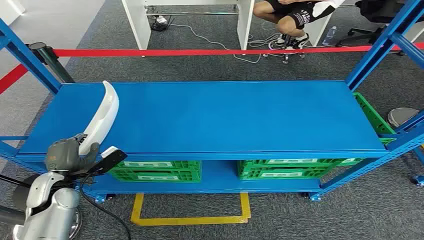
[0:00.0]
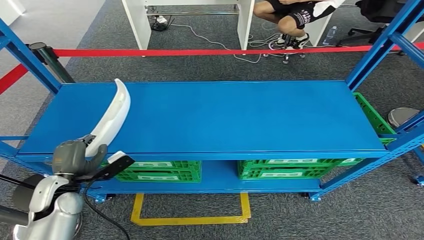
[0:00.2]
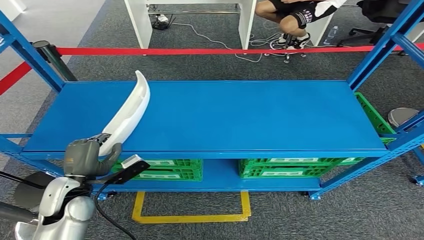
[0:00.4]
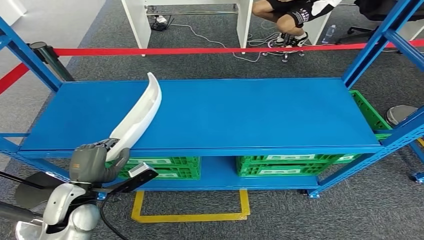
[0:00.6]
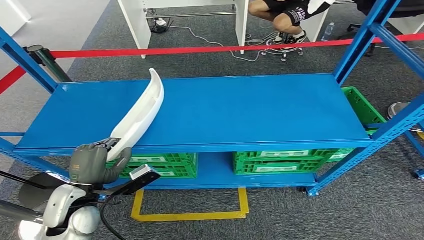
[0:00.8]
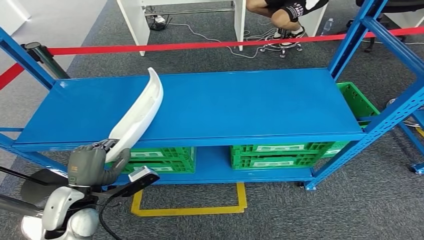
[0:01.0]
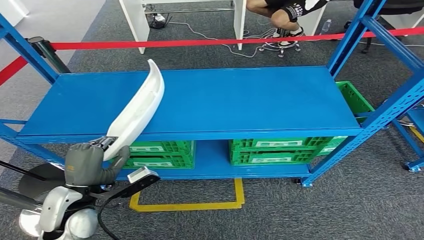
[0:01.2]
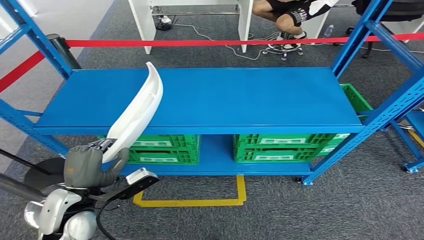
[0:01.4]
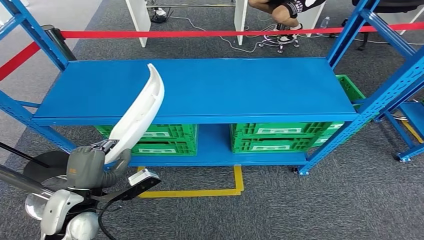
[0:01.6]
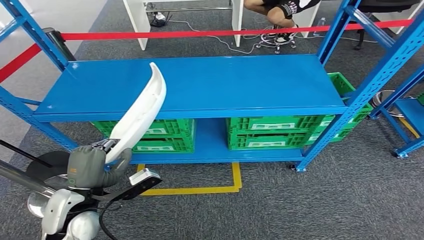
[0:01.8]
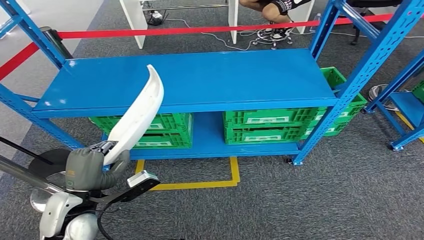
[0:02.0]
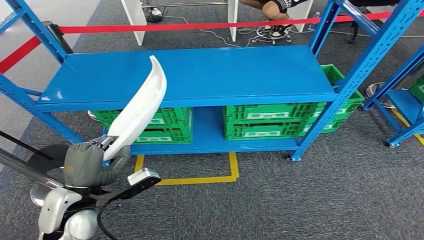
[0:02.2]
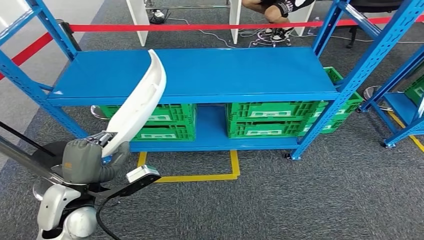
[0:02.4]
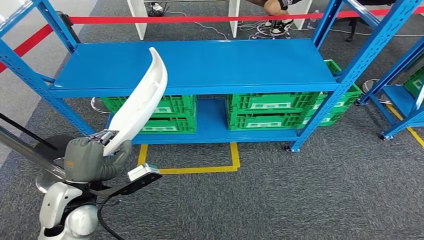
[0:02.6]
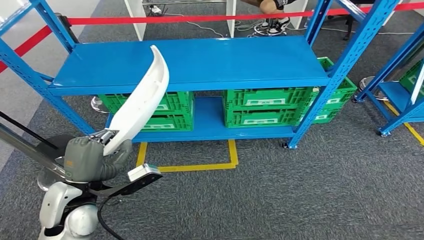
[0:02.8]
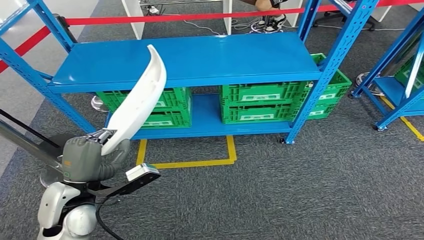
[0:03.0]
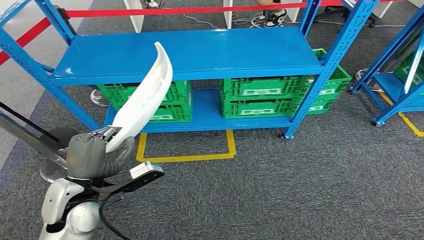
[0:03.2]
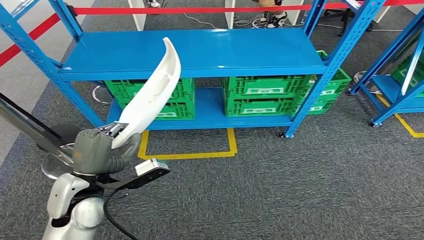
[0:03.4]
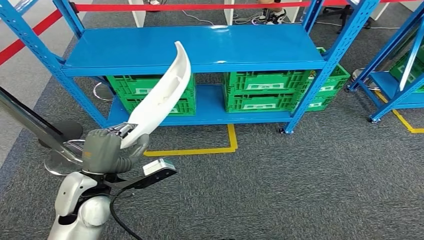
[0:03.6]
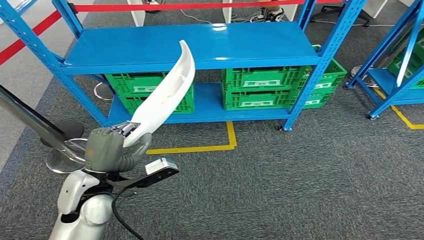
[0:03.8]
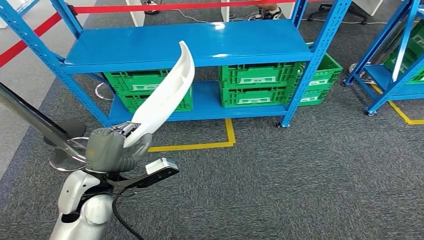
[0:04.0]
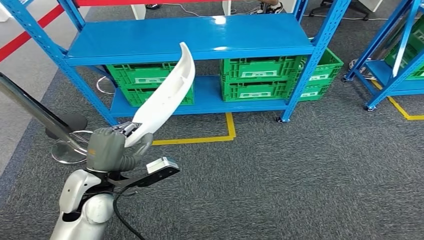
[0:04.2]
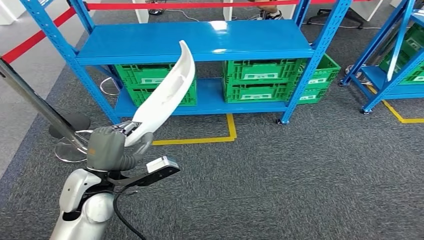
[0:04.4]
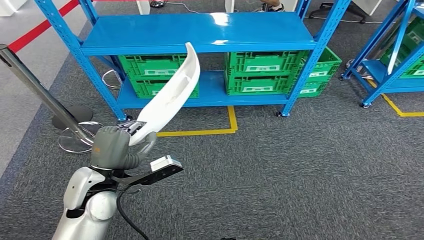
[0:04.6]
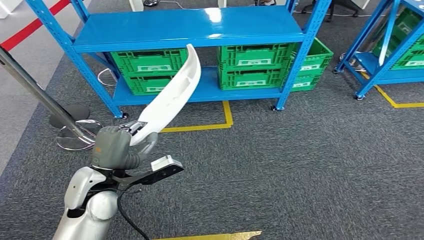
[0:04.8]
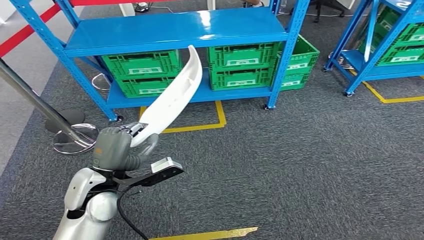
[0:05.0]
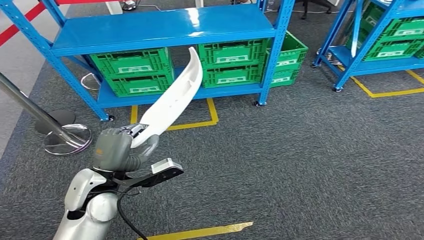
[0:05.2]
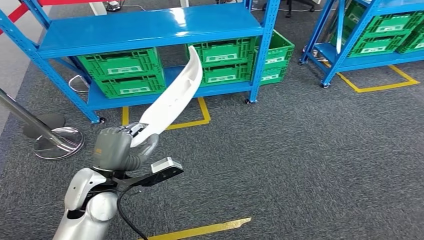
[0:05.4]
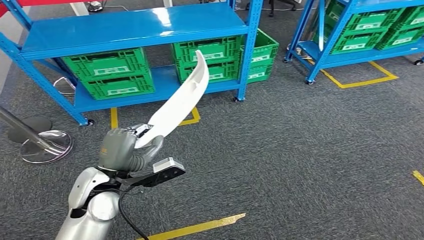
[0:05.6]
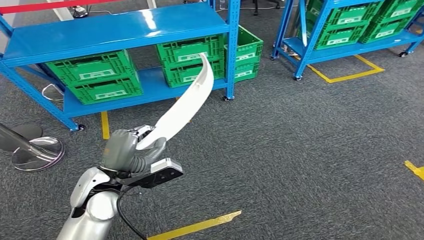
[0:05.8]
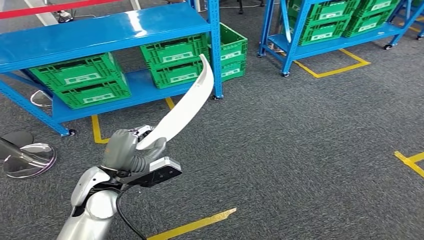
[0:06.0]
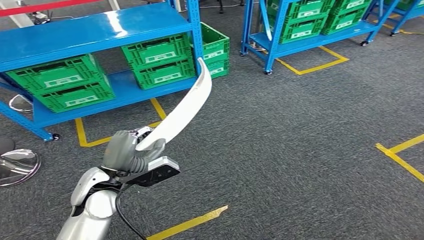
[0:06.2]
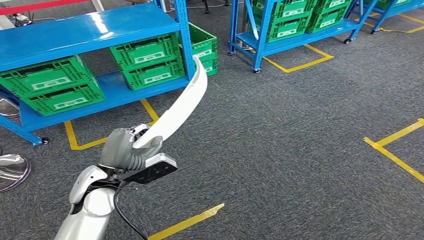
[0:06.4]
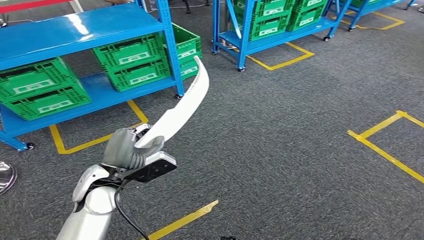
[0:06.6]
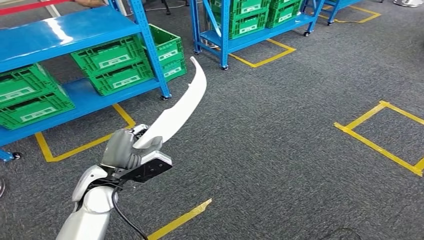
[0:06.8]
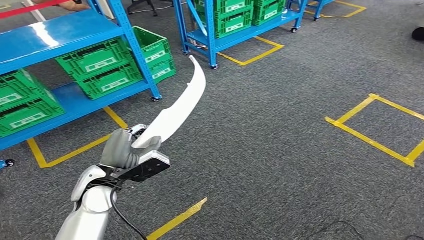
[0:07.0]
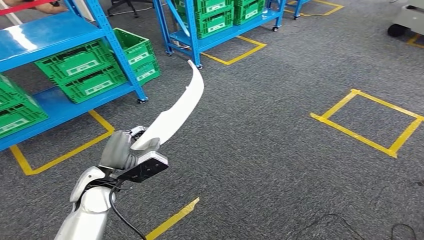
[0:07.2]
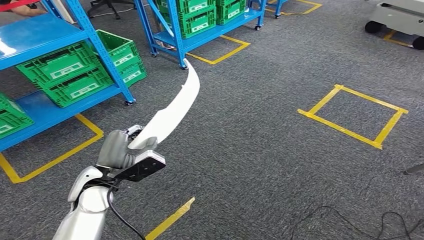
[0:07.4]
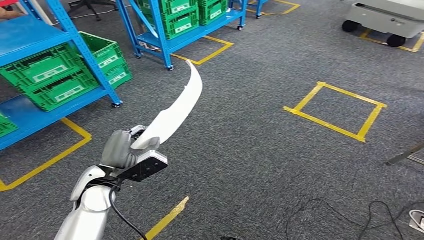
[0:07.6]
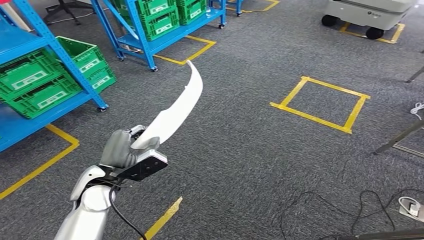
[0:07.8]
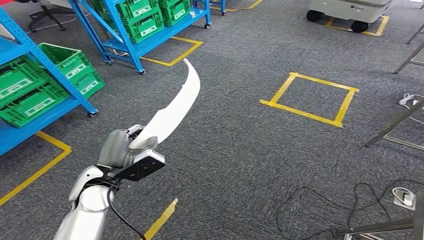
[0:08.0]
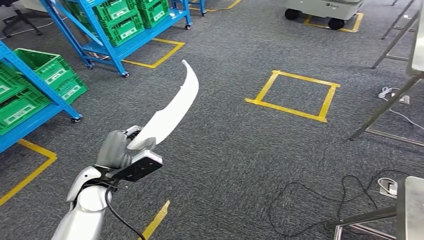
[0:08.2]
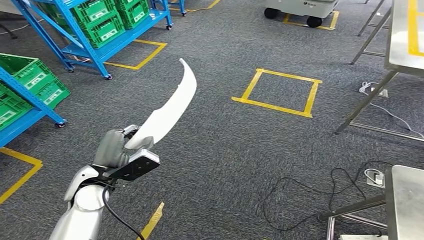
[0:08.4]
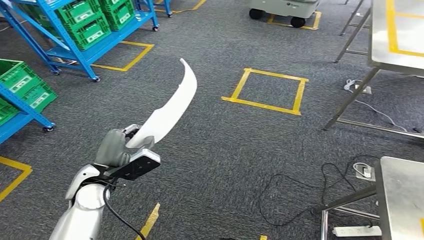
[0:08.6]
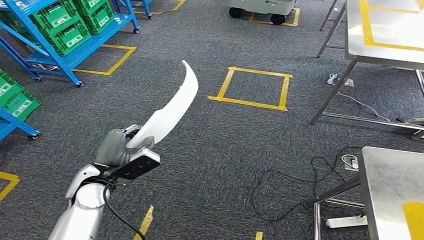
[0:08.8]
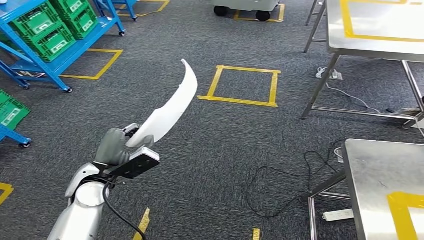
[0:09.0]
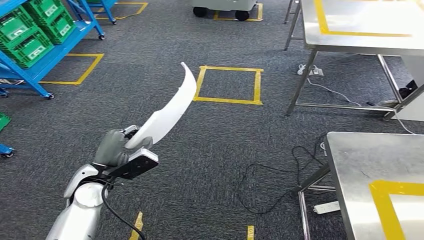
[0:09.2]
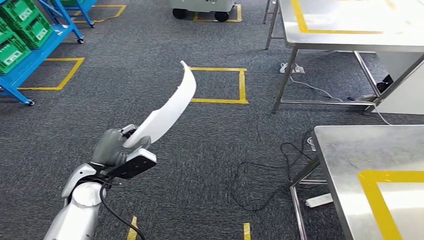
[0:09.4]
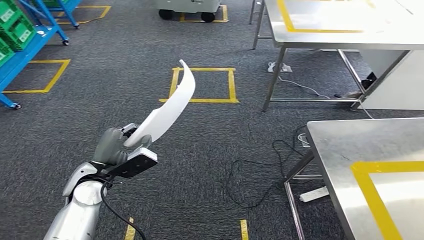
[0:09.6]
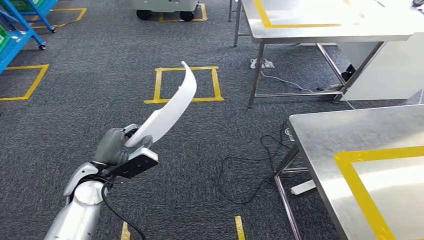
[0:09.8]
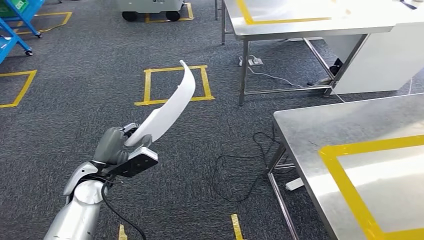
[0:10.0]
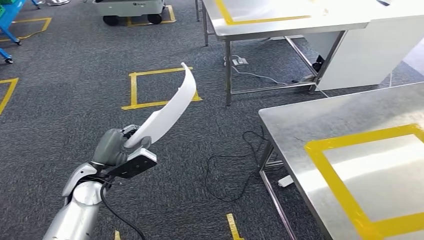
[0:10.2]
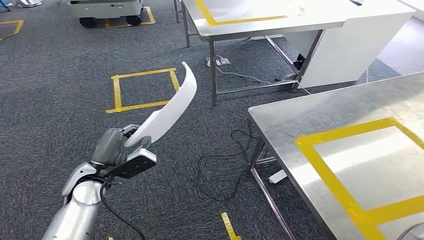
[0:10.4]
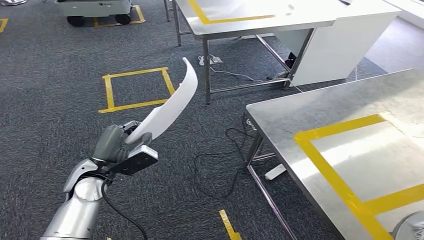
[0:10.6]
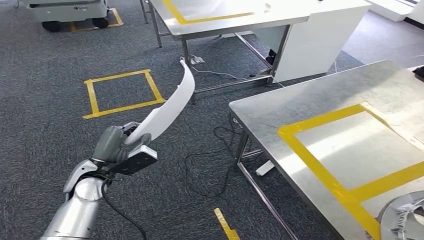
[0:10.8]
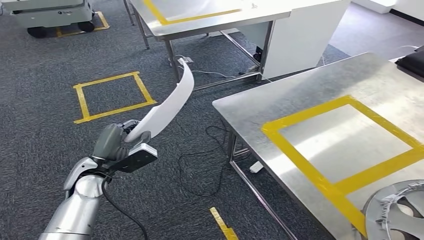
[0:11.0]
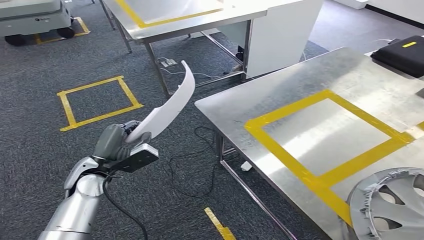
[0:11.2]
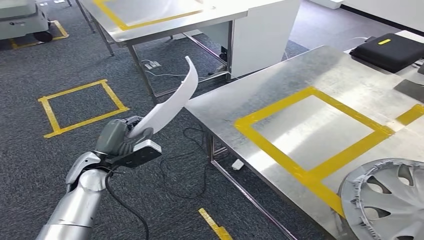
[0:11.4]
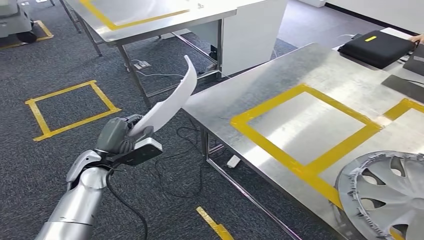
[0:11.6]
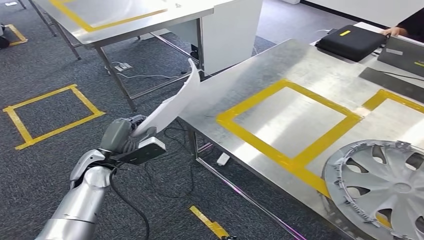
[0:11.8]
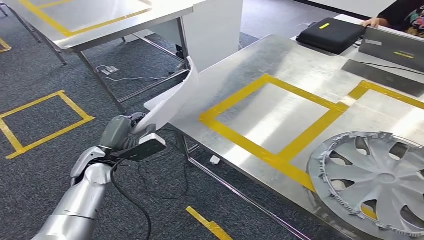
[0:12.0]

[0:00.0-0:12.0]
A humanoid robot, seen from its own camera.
Step, 0:00.0 to 0:02.2: Pick up the small parts from the shelf.

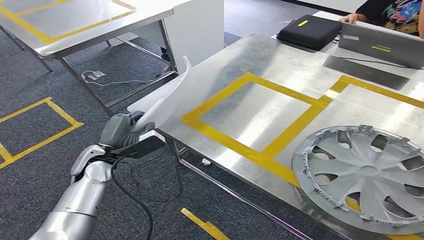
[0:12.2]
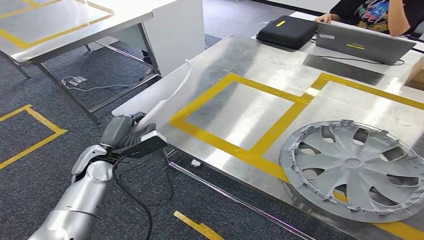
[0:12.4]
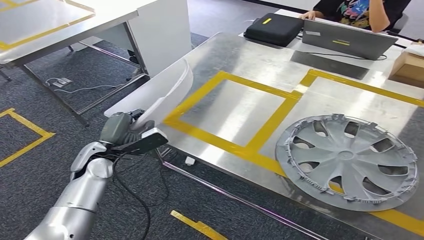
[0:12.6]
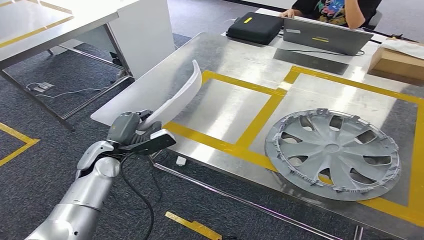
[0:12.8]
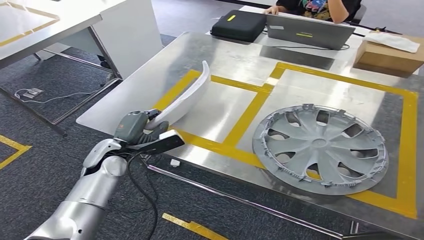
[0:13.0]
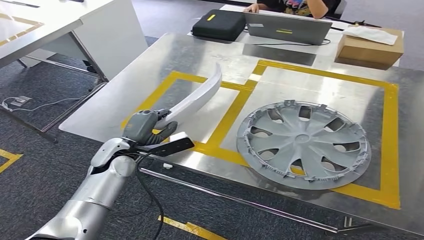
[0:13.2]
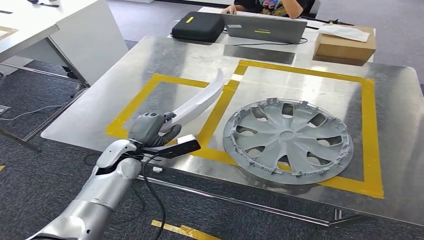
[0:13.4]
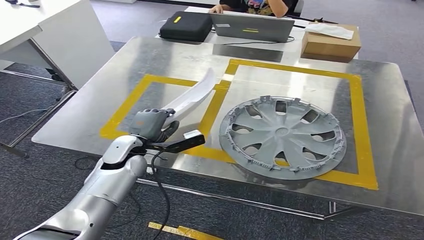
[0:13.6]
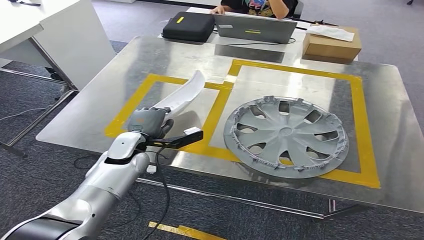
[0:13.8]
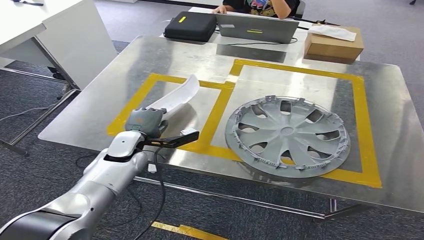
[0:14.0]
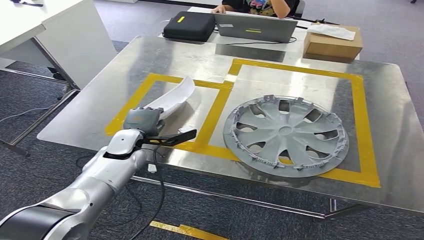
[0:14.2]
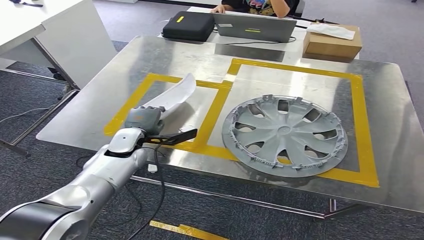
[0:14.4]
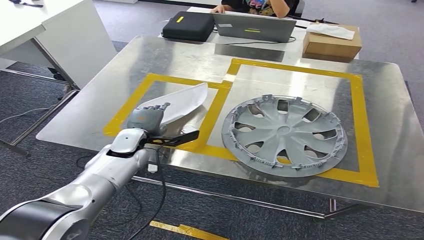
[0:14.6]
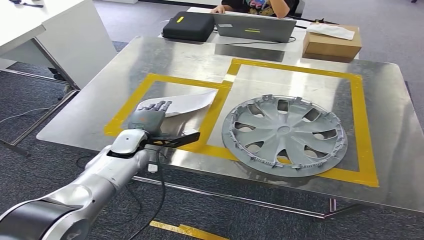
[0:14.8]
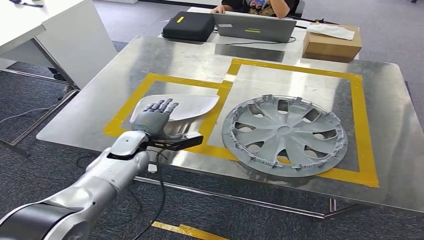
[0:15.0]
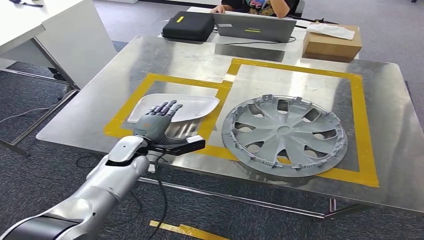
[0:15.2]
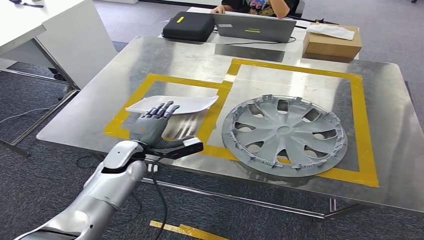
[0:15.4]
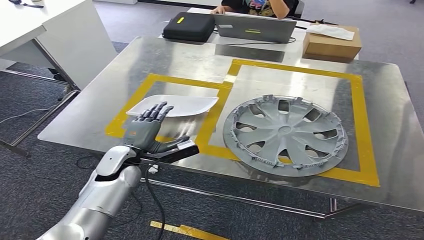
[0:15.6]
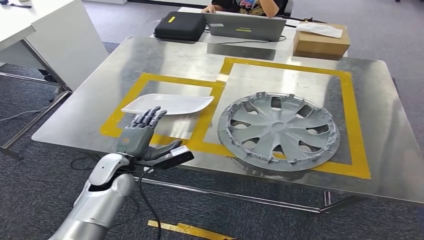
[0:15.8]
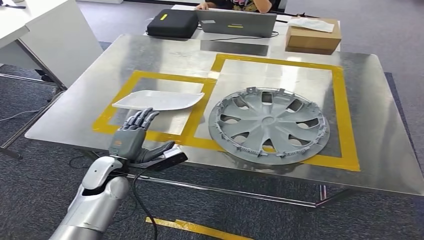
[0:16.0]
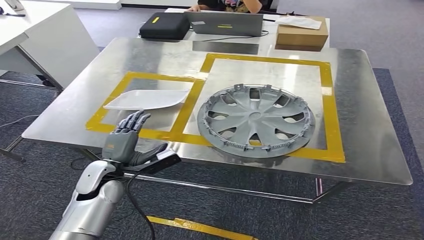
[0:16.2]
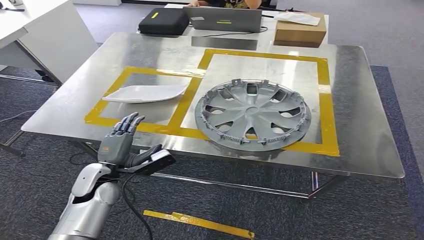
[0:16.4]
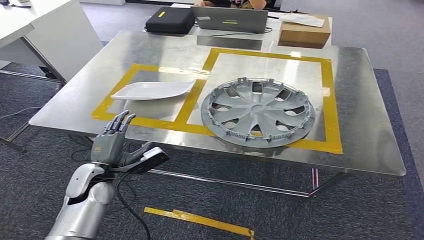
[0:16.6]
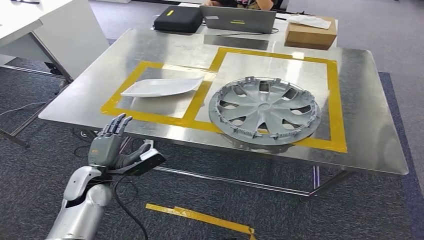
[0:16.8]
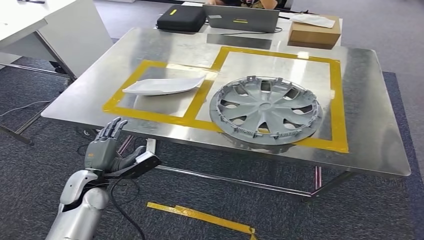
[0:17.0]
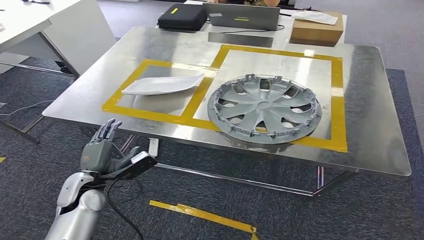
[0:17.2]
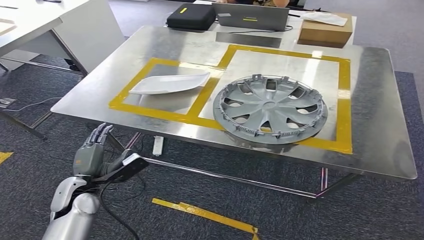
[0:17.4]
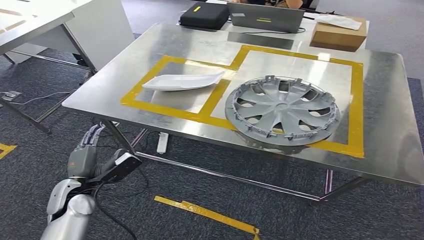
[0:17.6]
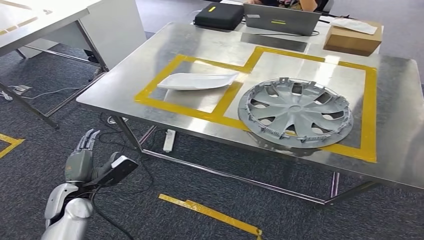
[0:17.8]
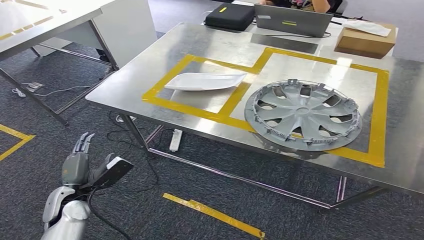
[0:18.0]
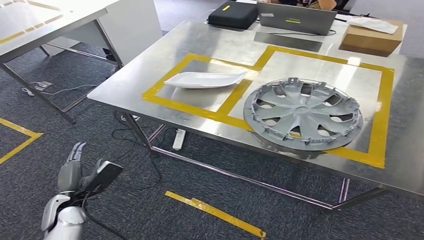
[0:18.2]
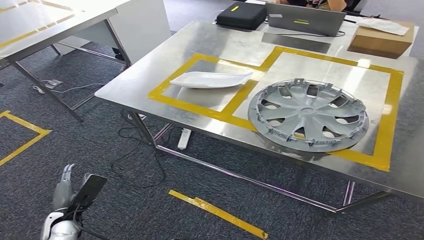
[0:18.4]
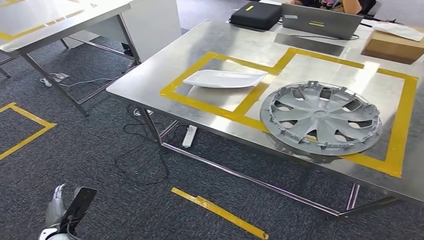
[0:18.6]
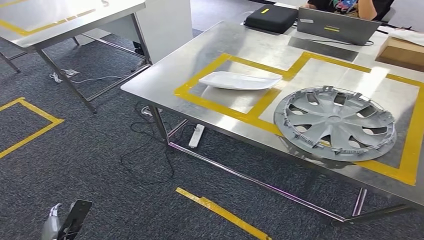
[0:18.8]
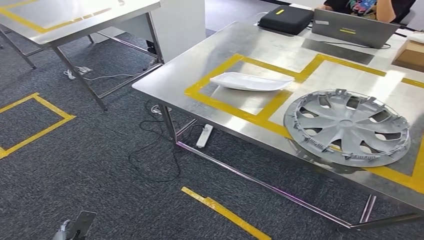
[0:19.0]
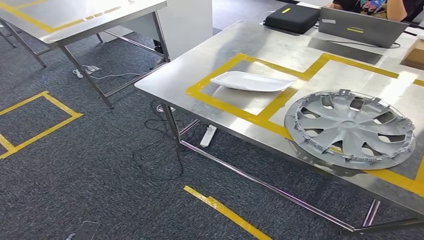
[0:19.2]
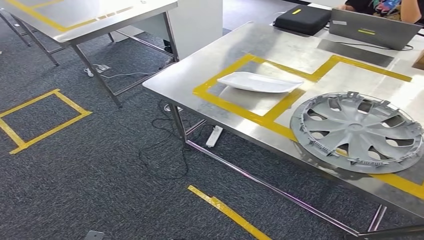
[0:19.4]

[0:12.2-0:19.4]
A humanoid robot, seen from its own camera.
Step, 0:12.2 to 0:17.4: Insert the small parts into the corresponding holes on the workbench.
